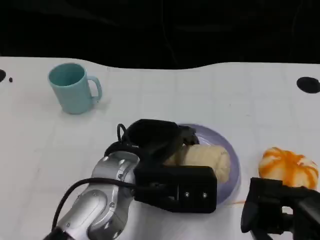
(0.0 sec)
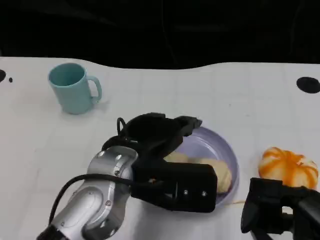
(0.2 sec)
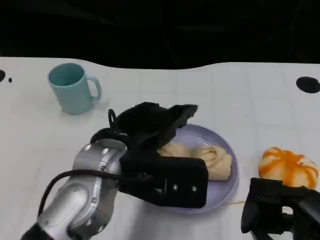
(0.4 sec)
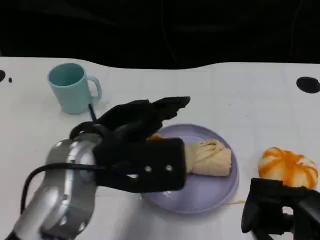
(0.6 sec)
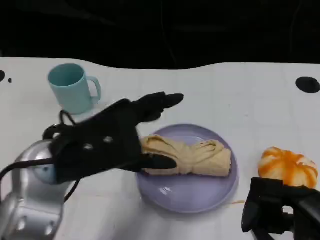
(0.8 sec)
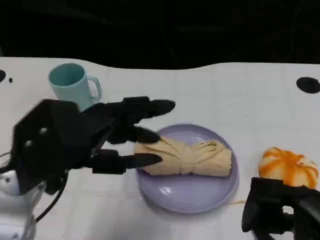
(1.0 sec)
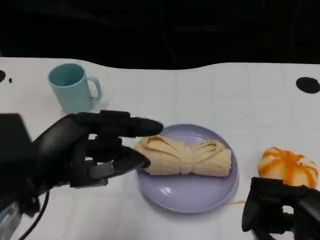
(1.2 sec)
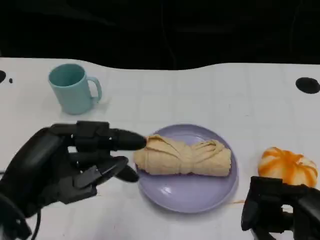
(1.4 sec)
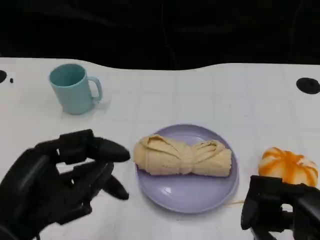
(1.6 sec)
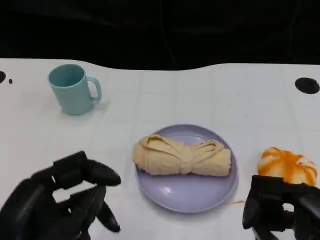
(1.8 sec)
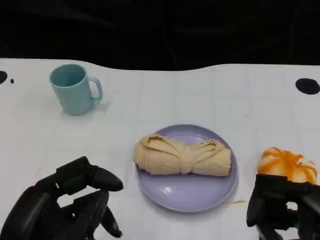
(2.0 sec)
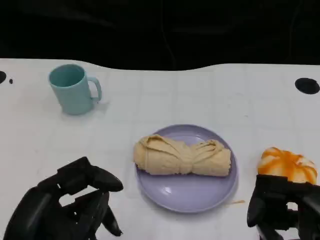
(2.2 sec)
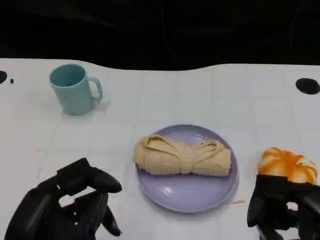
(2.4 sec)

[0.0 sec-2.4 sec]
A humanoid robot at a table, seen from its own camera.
Task of the whole recording: Grasp the towel on the left side of the plate with the left hand and place it into the plate.
0.0 sec to 1.2 sec: The left hand heads to the left and backward, covering about 15 cm.
1.2 sec to 2.4 sec: The left hand is displaced backward and downward by some 10 cm.

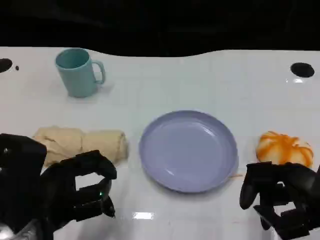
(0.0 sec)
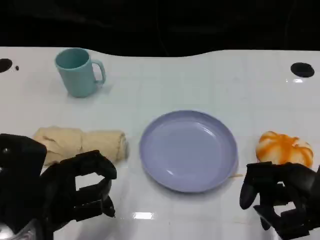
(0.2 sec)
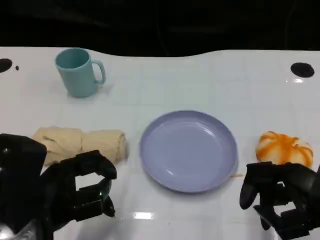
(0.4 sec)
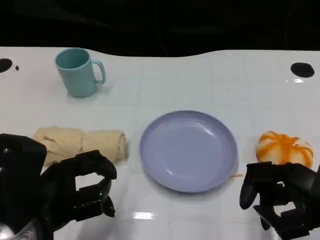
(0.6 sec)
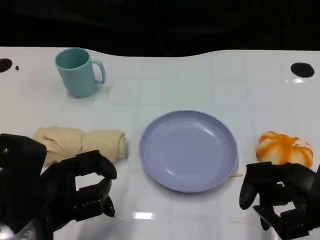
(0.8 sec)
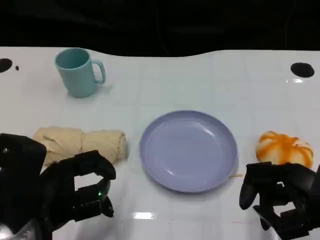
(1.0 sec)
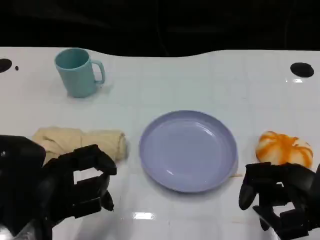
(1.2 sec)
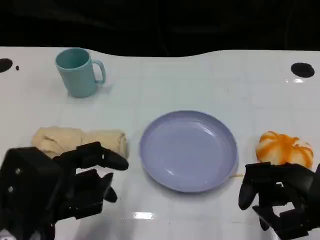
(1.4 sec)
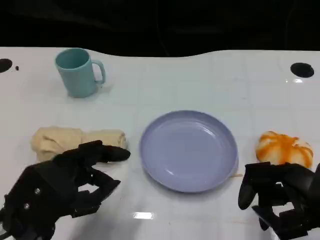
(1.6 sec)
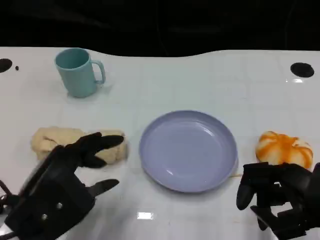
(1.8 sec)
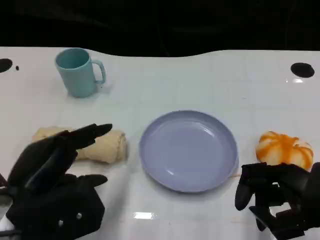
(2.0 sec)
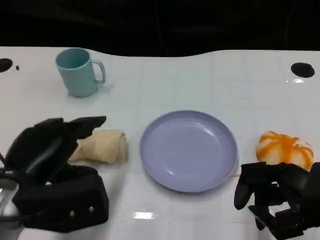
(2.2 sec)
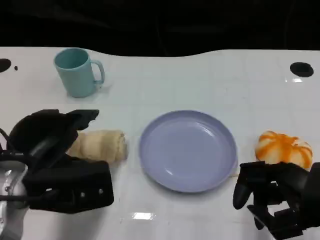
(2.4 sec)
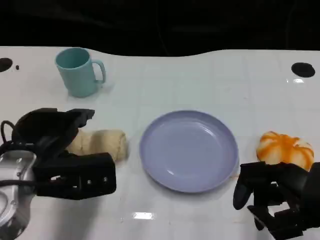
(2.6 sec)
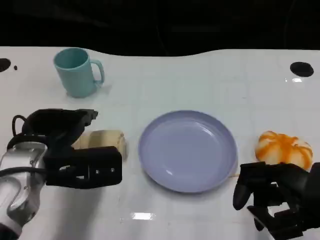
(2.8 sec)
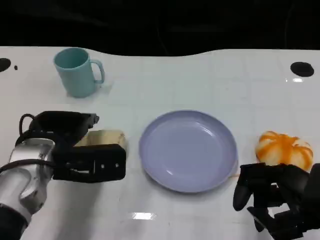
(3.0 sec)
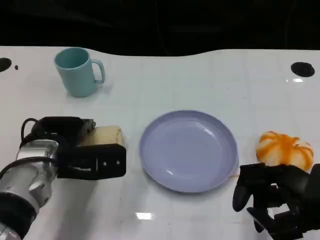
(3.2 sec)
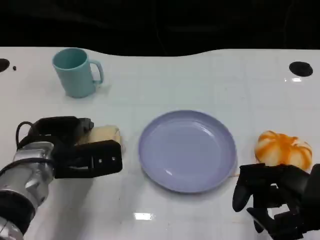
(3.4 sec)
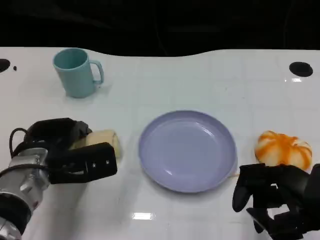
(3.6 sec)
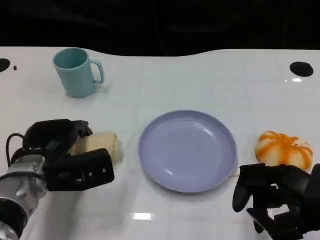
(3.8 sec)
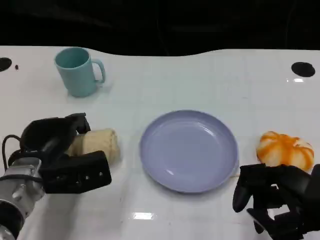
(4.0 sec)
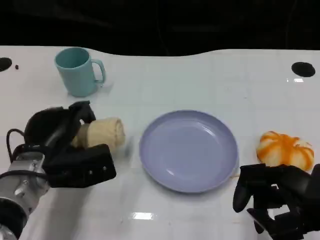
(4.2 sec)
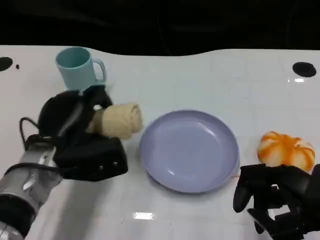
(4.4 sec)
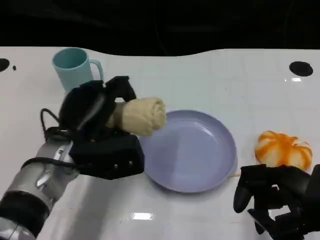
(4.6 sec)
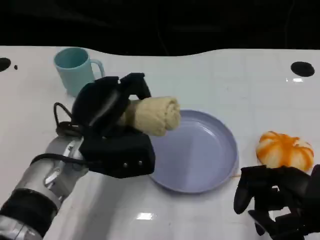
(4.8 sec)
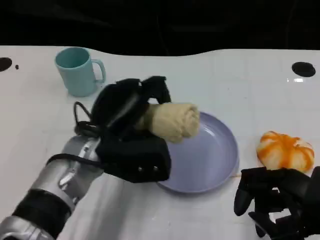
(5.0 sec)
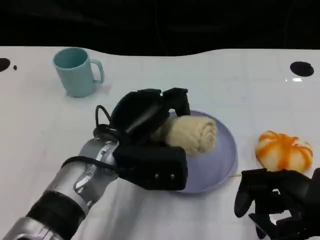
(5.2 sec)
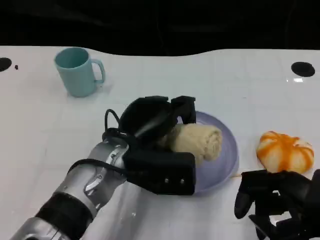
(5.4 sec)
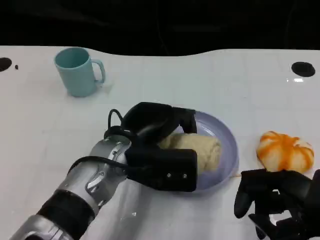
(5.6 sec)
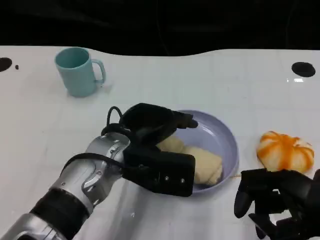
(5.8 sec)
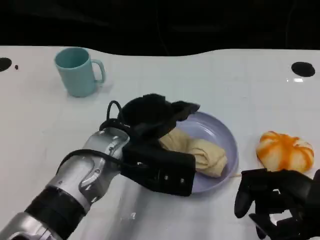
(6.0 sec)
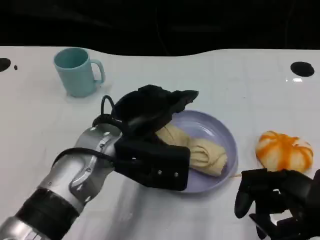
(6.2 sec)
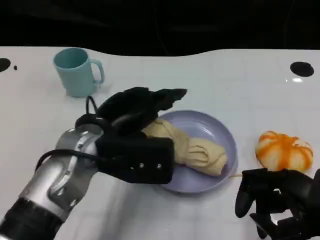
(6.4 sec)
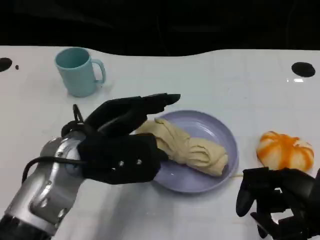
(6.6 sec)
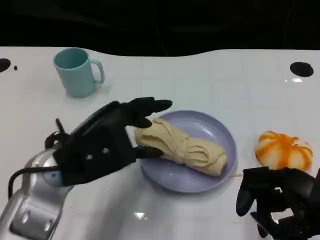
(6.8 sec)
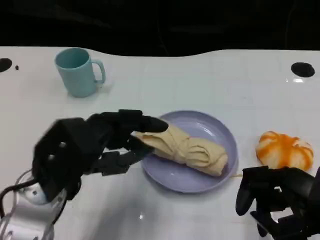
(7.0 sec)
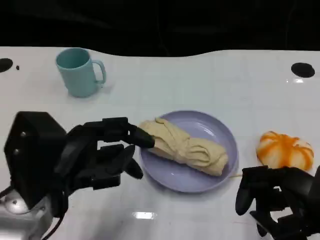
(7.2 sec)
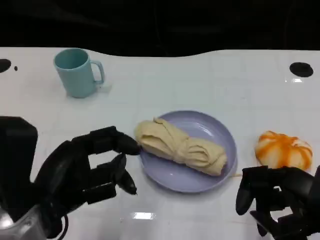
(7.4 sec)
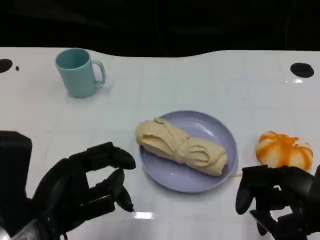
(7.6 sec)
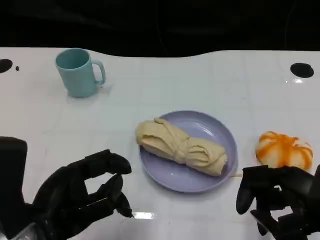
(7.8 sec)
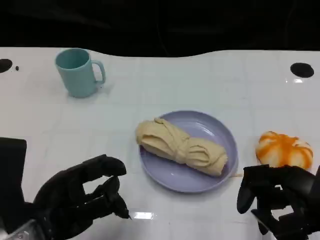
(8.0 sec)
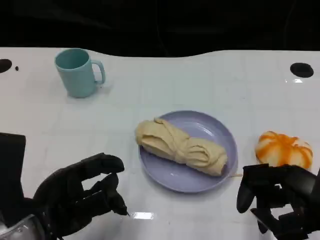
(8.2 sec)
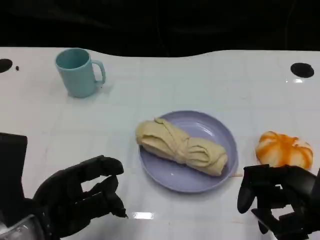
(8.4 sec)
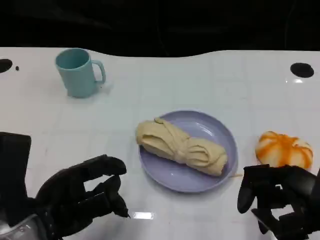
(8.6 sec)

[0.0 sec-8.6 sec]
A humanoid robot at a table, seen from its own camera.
Task of the whole recording: Grasp the towel on the left side of the plate with the left hand and place it into the plate.
1.4 sec to 2.8 sec: The left hand travels forward by approximately 10 cm.
4.4 sec to 5.8 sec: The left hand is displaced to the right by some 10 cm.
5.8 sec to 7.2 sec: The left hand moves to the left and backward, approximately 15 cm.
